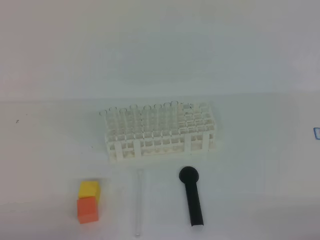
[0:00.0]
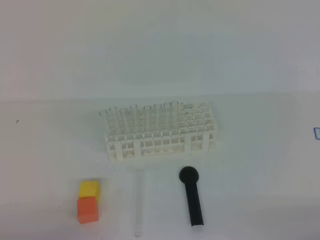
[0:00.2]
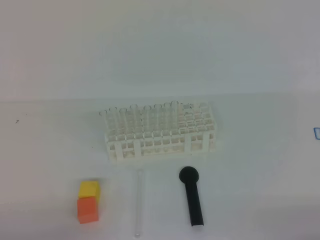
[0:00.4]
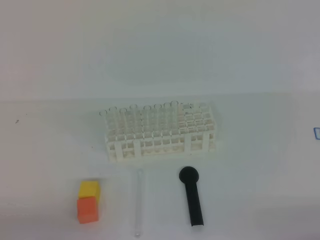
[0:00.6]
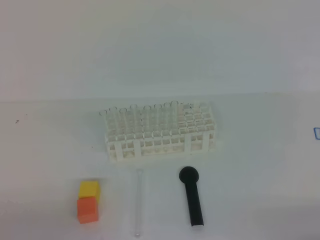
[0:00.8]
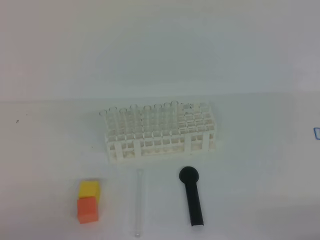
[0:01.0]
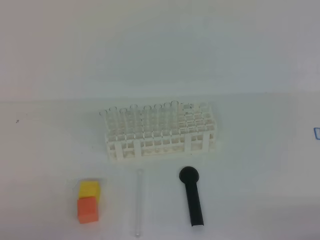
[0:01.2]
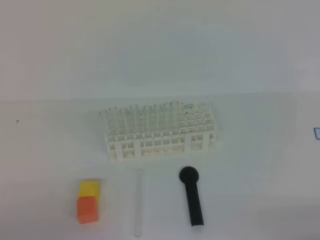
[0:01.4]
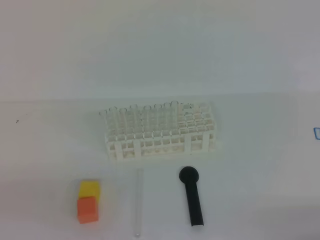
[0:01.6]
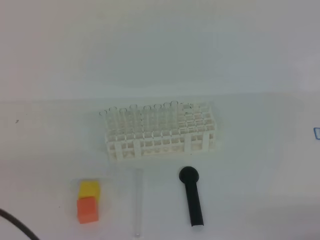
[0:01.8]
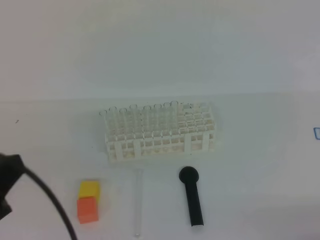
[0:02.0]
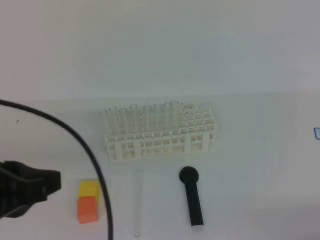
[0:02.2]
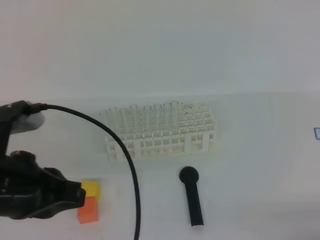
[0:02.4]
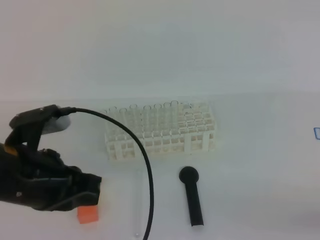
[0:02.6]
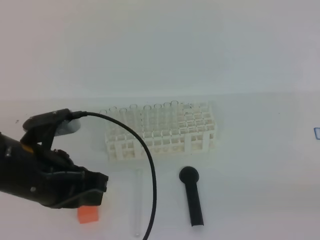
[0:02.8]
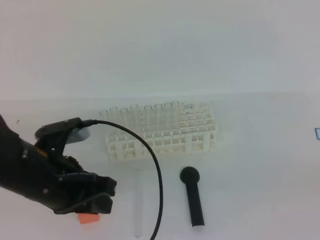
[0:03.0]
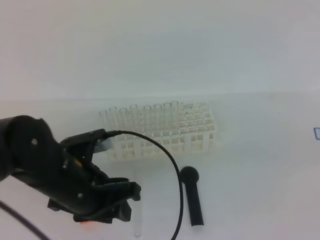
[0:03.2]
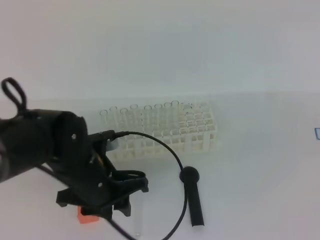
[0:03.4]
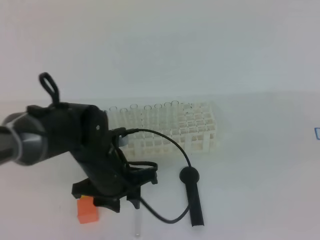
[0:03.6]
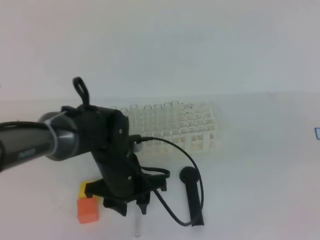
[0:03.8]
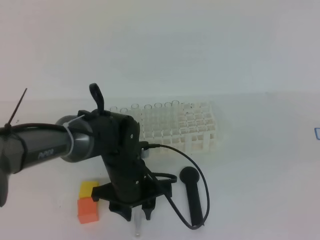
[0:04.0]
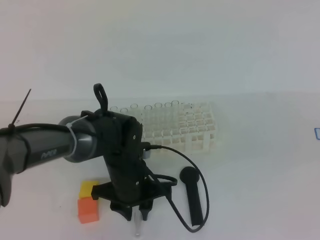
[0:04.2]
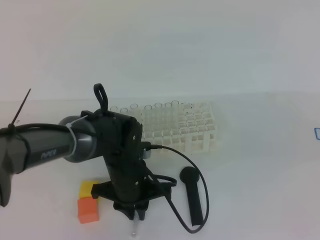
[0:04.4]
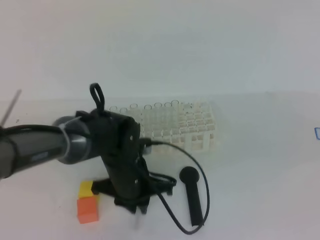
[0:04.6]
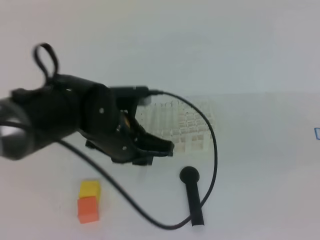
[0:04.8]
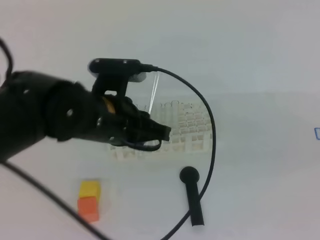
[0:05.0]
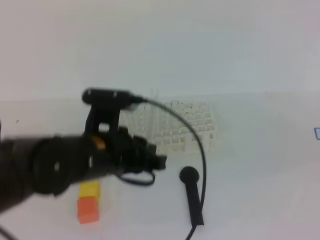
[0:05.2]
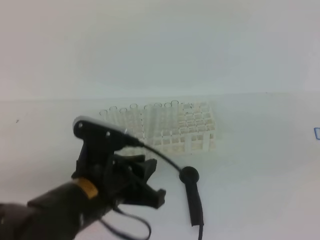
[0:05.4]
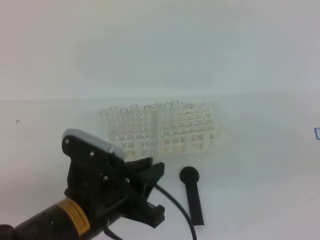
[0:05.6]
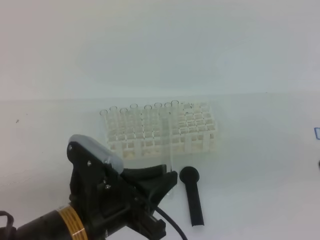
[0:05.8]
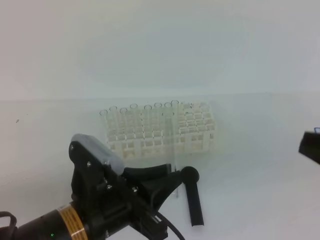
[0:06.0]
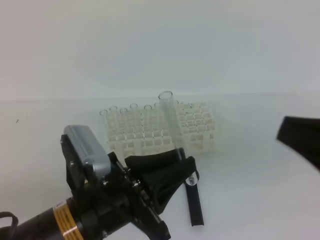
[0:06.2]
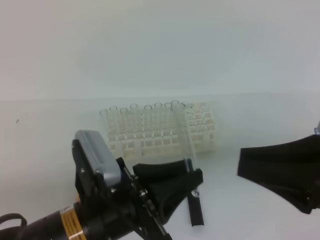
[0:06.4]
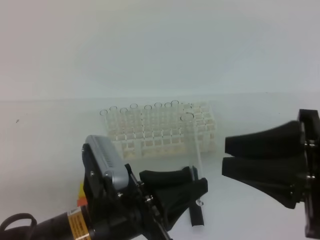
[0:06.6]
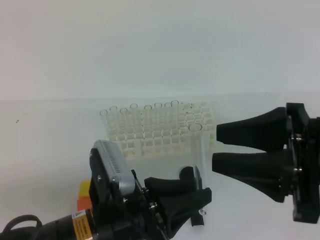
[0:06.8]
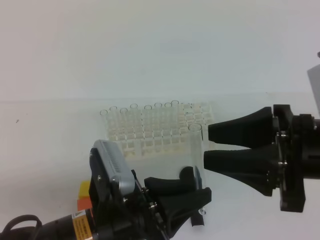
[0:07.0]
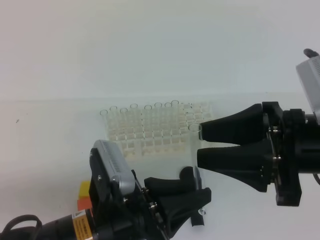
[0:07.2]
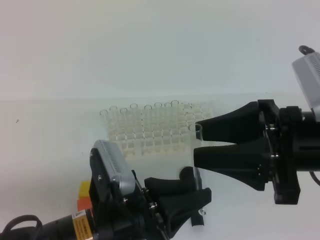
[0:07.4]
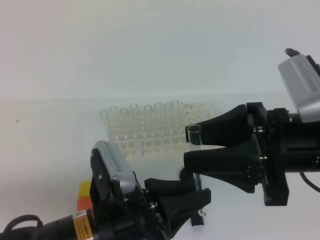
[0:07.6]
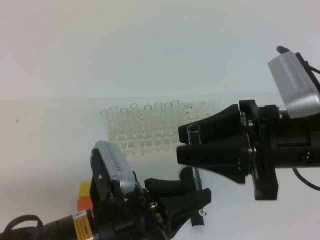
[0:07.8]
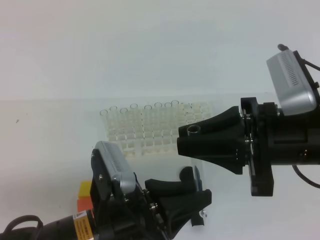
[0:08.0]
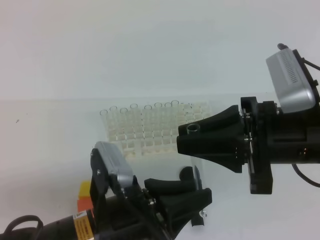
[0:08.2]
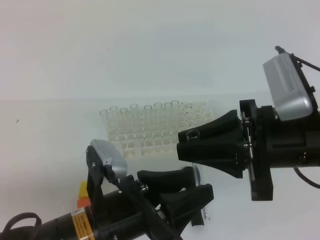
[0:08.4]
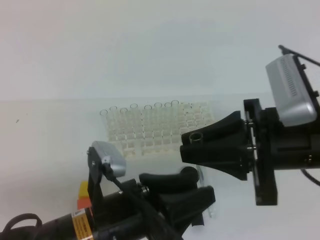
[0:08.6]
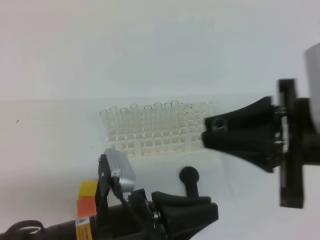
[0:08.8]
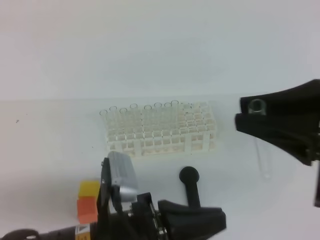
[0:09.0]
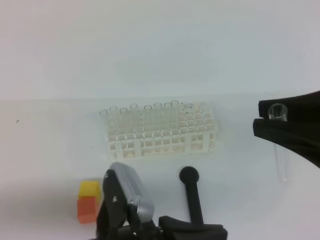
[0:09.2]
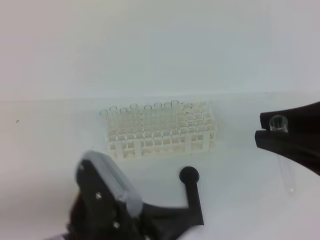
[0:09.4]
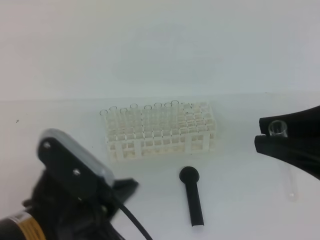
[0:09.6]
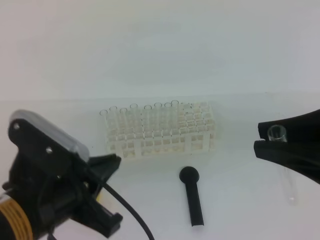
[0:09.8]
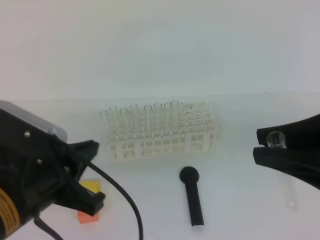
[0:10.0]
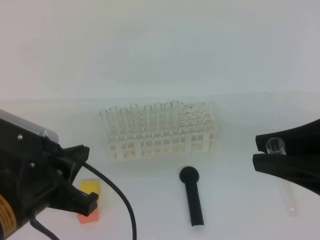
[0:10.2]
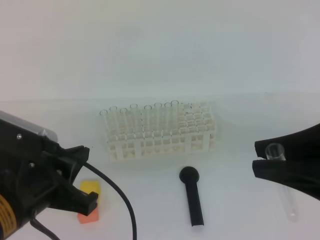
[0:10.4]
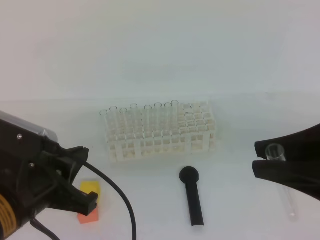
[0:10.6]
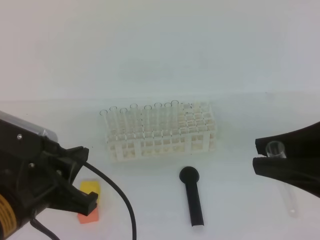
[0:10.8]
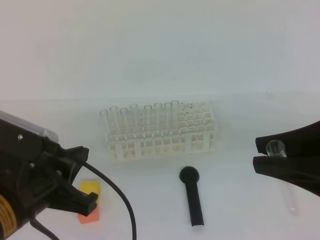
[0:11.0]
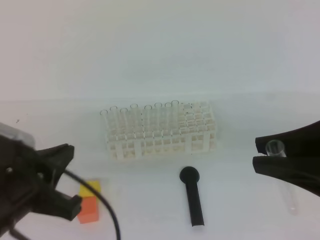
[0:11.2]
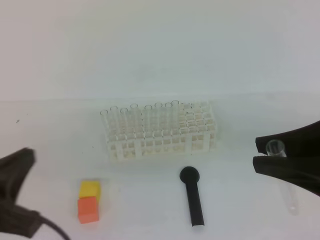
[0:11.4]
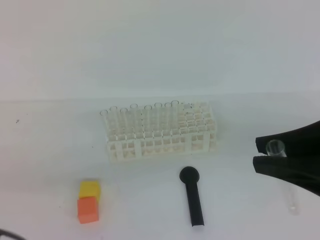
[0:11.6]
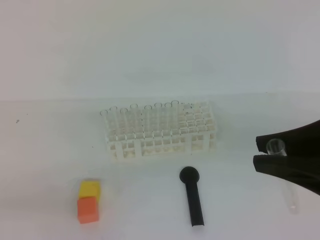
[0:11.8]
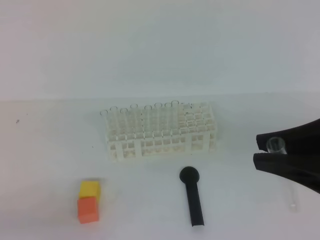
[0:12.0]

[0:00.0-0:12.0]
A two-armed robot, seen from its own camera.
0:01.6 to 0:03.0: The right gripper goes approximately 10 cm upward; the left gripper shifts approximately 20 cm forward and to the right, and opens its fingers.
0:03.0 to 0:04.4: The right gripper is displaced upward and forward by approximately 10 cm. Meanwhile the left gripper shifts approximately 20 cm downward, to the right and forward, and closes.
0:04.4 to 0:06.0: The left gripper is displaced backward and upward by about 20 cm. Meanwhile the right gripper ends up roughly 5 cm from where it was.
0:06.0 to 0:07.6: The right gripper goes about 10 cm forward and to the left, and opens.
0:07.6 to 0:09.0: The right gripper moves upward, about 5 cm, and closes up. Meanwhile the left gripper opens, then closes again.
0:09.0 to 0:10.4: The left gripper goes roughly 10 cm to the left and upward.
0:10.4 to 0:12.0: The left gripper heads to the left, backward and downward, covering about 15 cm.

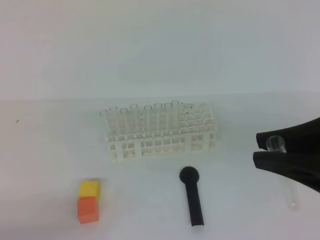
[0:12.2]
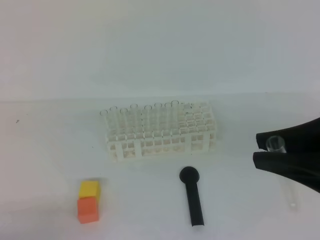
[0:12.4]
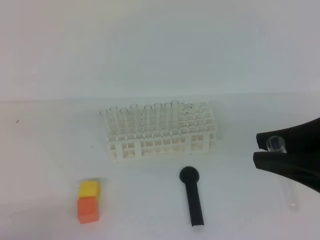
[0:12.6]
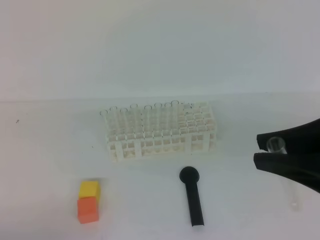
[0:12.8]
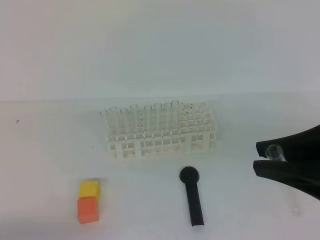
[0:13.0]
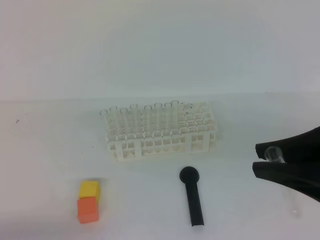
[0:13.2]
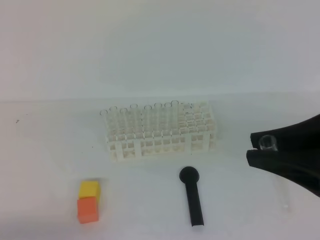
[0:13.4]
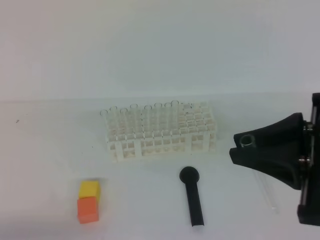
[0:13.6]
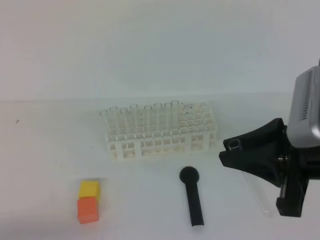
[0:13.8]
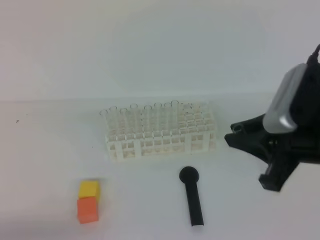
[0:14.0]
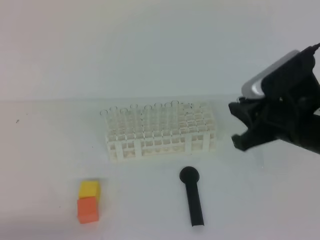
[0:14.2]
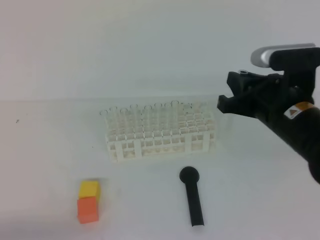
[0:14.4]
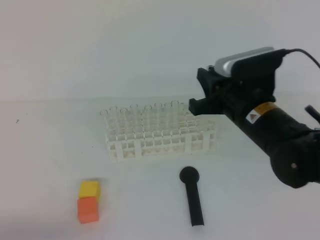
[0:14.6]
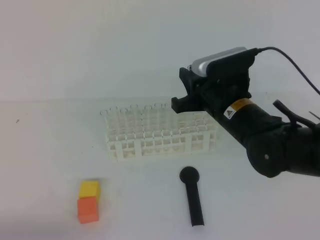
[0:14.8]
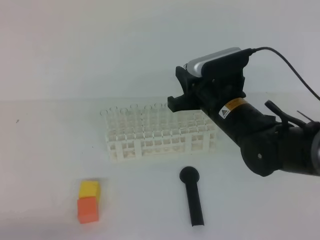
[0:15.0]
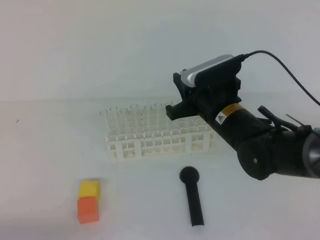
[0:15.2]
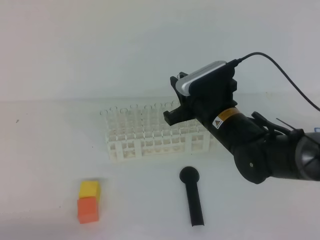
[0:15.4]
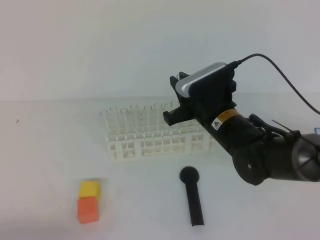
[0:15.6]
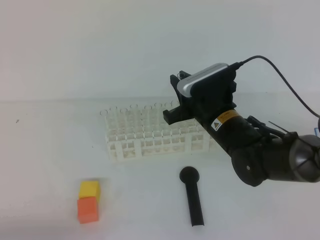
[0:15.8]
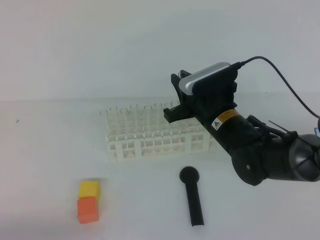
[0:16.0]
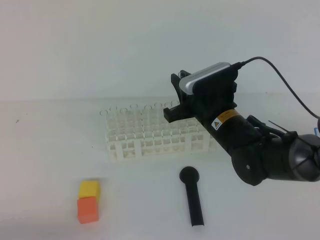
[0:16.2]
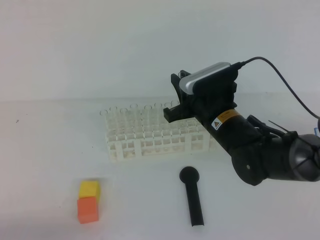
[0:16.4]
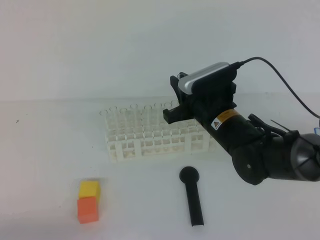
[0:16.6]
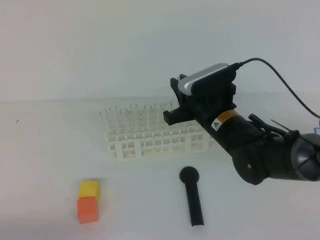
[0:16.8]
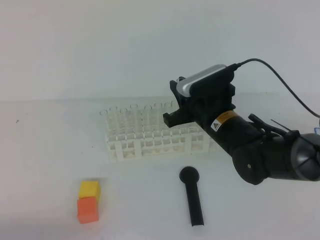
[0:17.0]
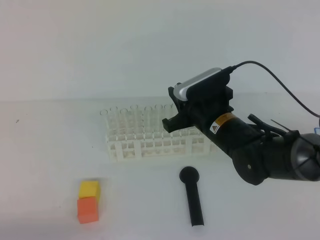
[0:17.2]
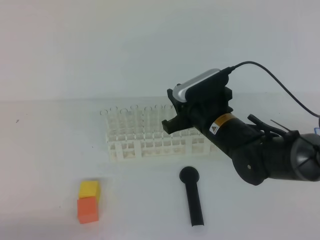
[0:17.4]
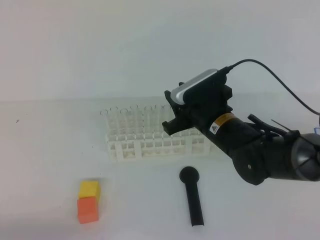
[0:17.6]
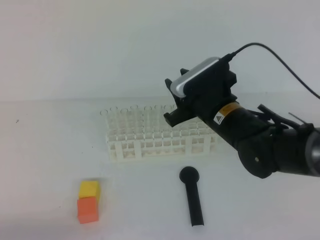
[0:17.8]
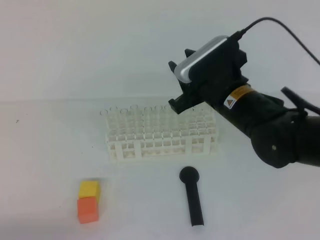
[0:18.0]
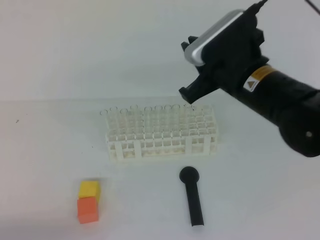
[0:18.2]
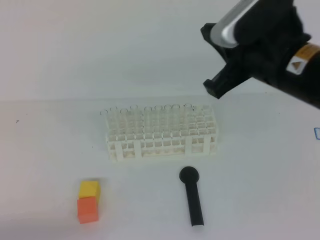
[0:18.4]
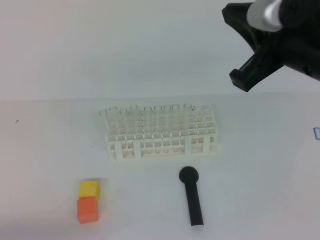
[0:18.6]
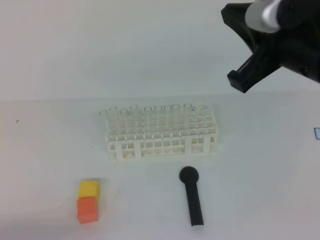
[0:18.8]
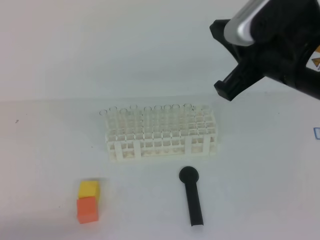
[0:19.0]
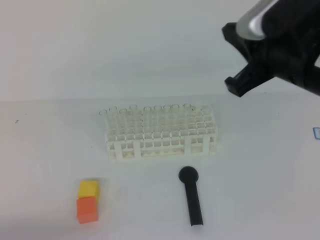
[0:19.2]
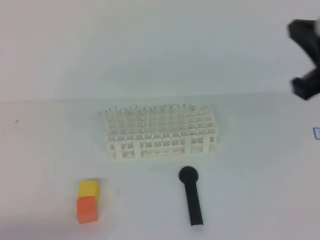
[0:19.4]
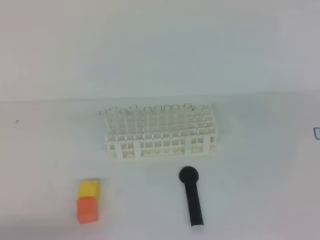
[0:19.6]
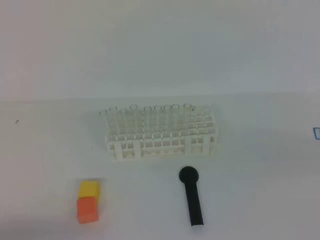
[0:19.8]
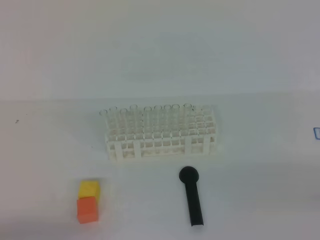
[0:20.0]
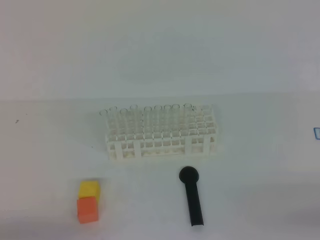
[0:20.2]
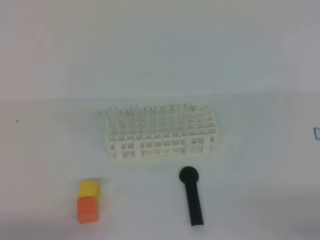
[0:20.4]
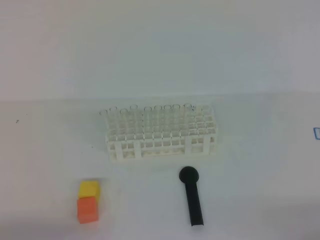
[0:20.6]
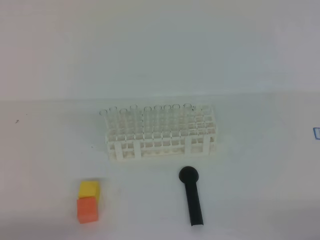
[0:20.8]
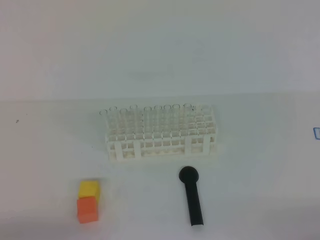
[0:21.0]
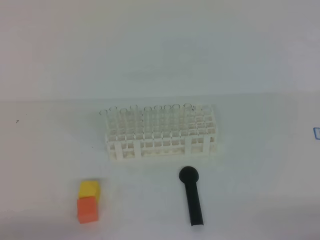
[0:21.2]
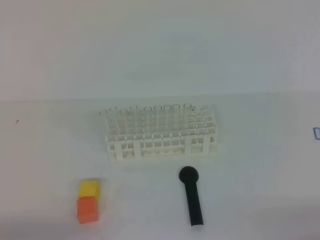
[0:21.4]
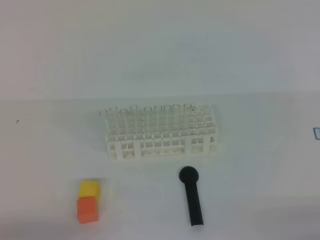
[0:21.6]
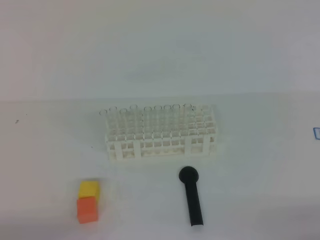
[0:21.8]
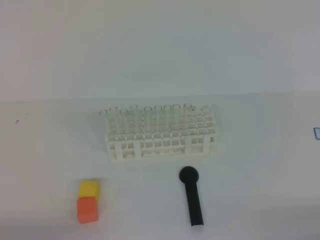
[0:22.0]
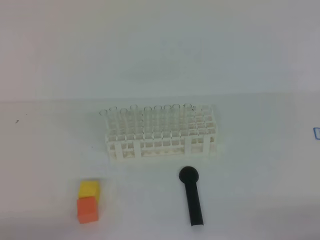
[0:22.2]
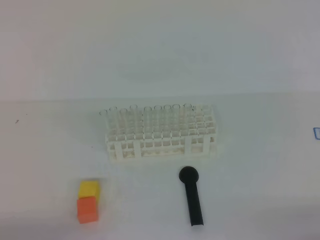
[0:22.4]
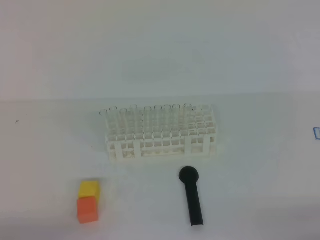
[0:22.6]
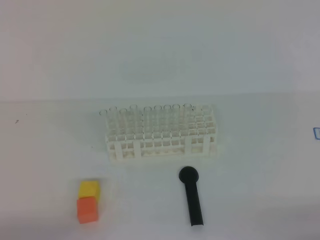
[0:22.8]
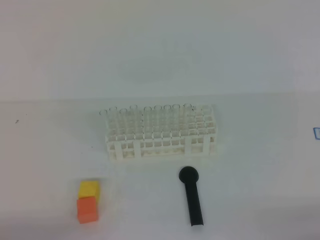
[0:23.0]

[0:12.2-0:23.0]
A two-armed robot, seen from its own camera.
0:12.2 to 0:13.8: The right gripper is displaced forward by roughly 5 cm.
0:13.8 to 0:15.2: The right gripper moves forward, downward and to the left, about 20 cm.
0:15.2 to 0:16.8: The grippers make only small movements.
0:16.8 to 0:18.4: The right gripper shifts roughly 15 cm upward and backward, and opens, then closes again.
0:18.4 to 0:20.0: The right gripper shifts some 30 cm to the right, backward and downward.
